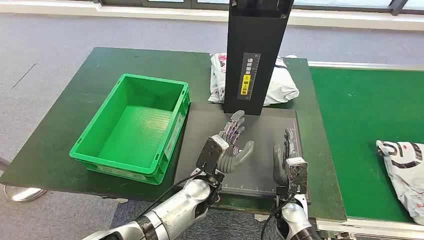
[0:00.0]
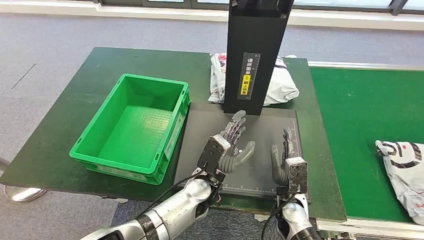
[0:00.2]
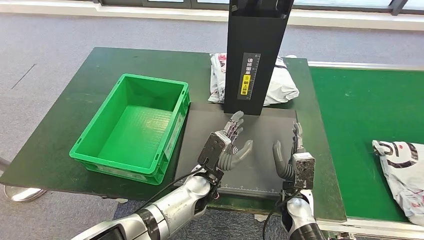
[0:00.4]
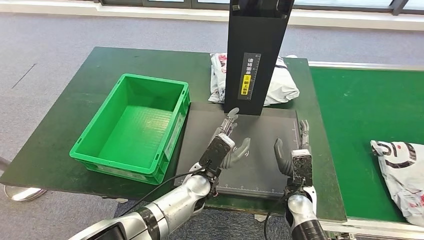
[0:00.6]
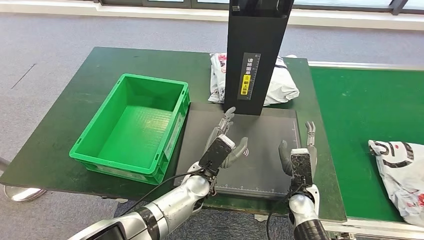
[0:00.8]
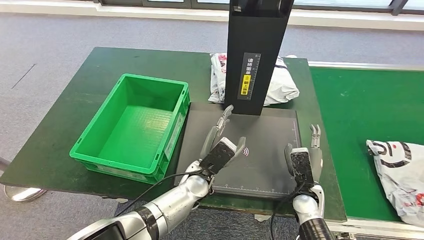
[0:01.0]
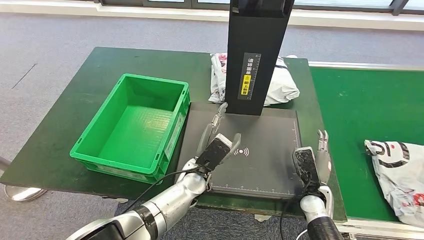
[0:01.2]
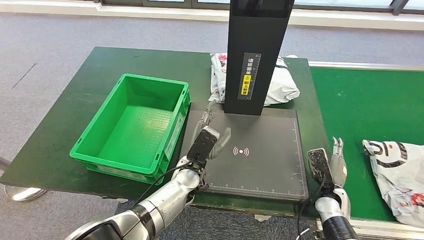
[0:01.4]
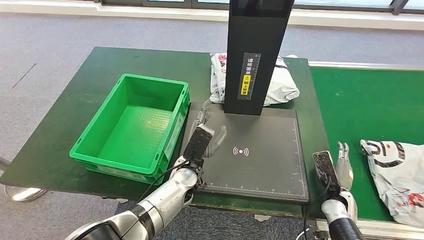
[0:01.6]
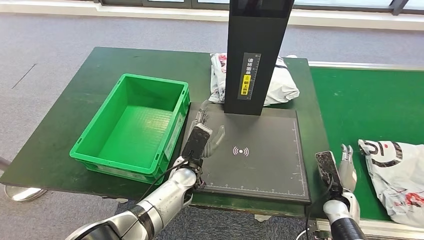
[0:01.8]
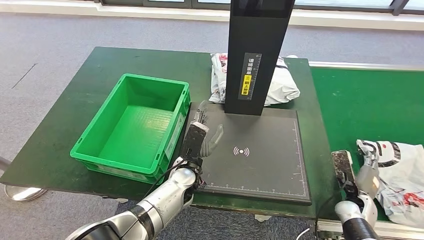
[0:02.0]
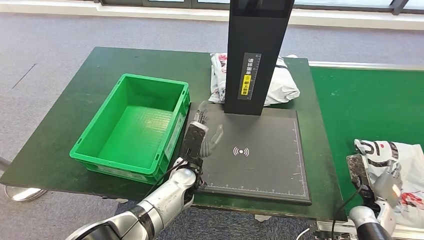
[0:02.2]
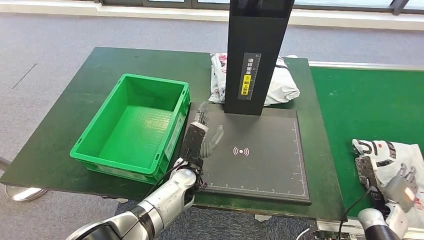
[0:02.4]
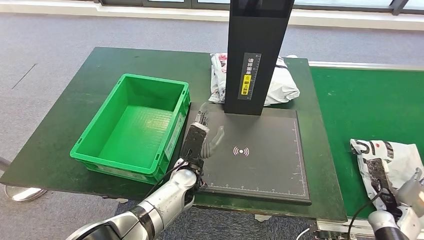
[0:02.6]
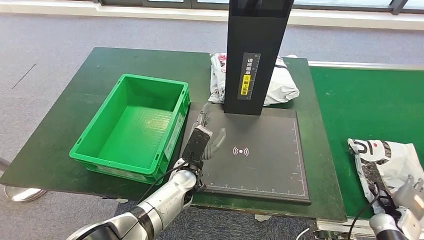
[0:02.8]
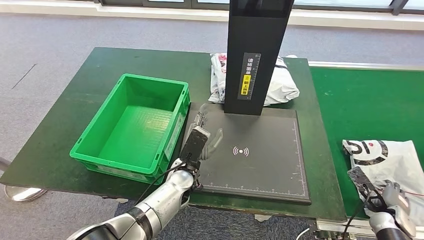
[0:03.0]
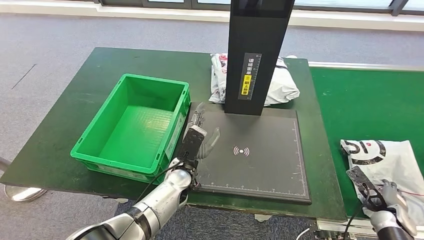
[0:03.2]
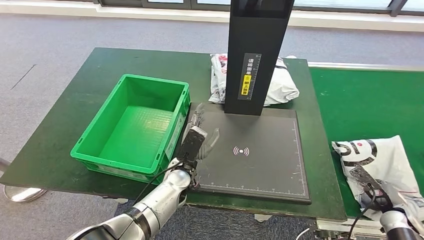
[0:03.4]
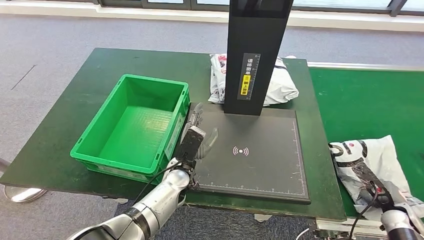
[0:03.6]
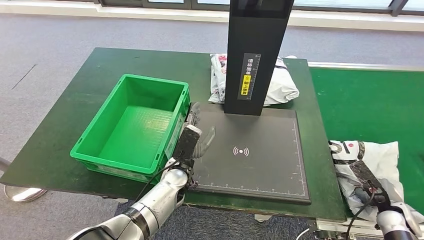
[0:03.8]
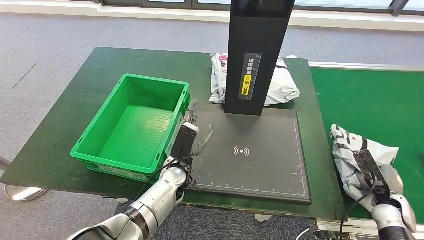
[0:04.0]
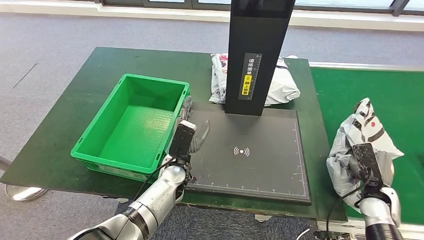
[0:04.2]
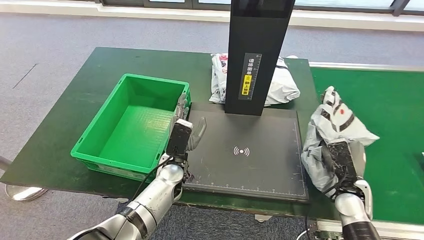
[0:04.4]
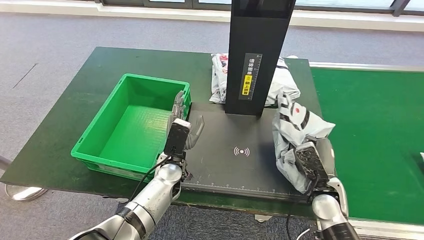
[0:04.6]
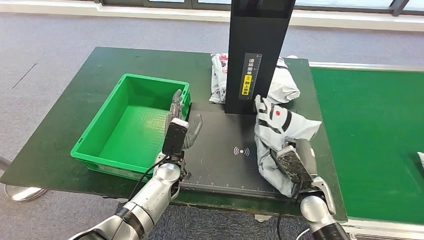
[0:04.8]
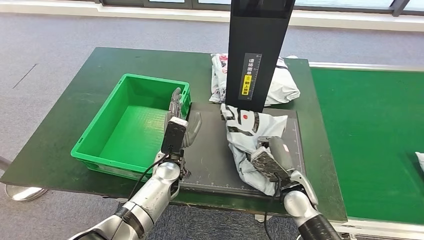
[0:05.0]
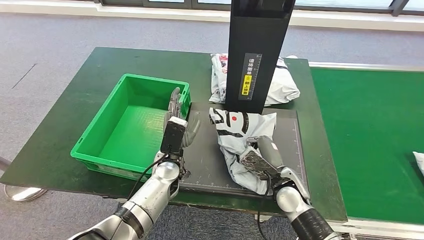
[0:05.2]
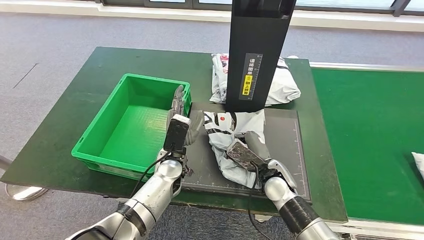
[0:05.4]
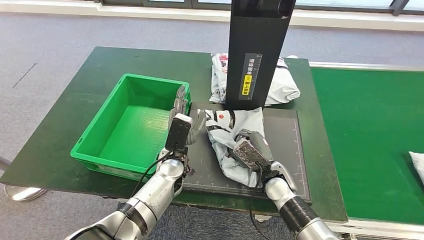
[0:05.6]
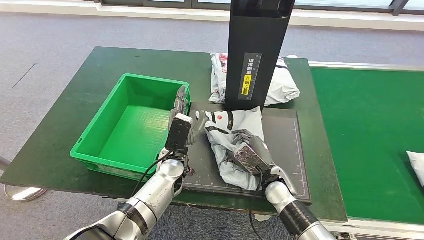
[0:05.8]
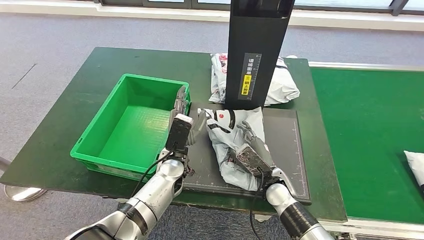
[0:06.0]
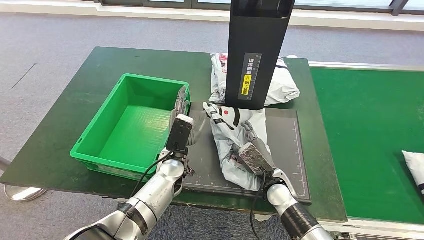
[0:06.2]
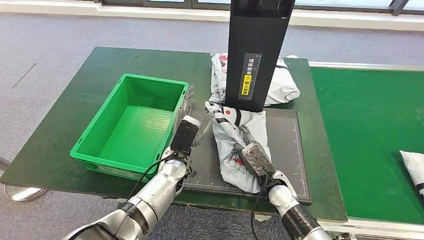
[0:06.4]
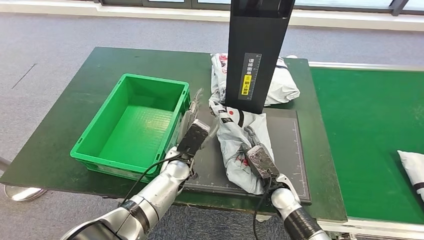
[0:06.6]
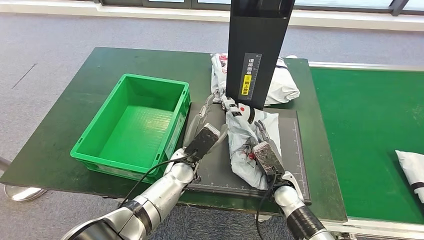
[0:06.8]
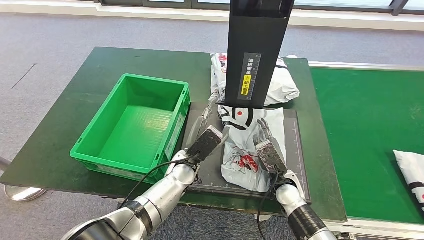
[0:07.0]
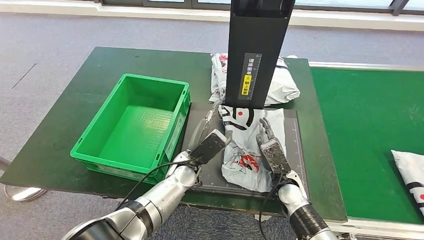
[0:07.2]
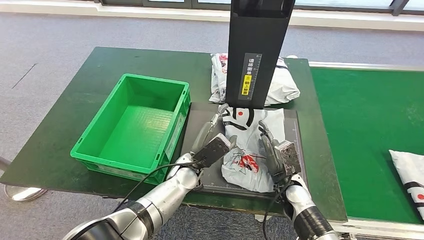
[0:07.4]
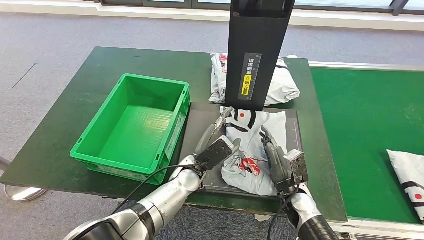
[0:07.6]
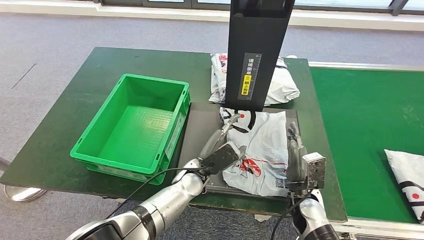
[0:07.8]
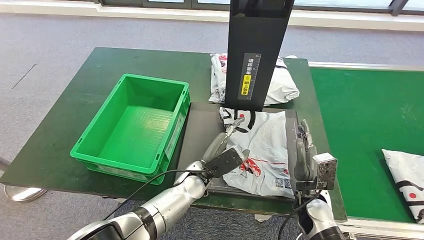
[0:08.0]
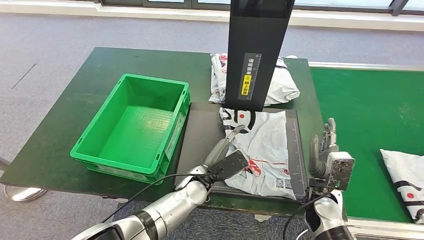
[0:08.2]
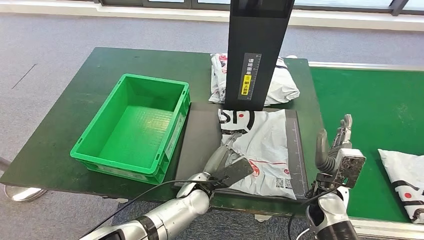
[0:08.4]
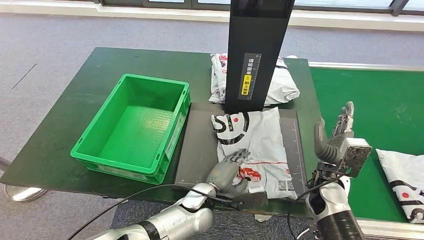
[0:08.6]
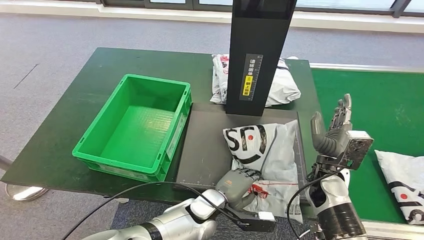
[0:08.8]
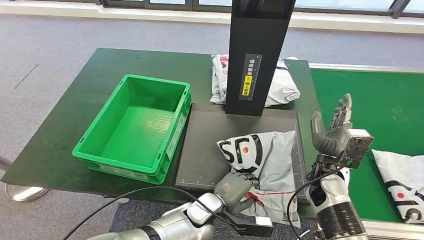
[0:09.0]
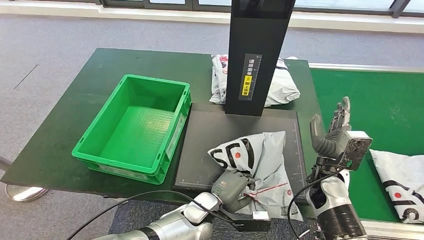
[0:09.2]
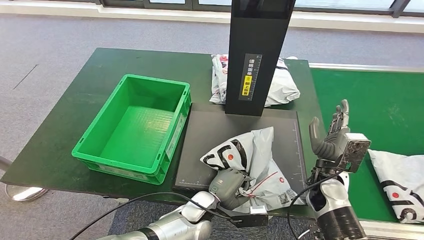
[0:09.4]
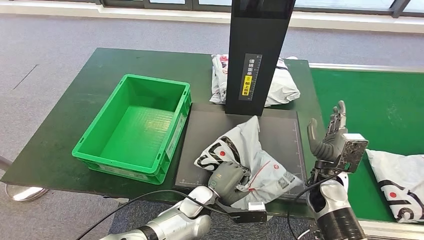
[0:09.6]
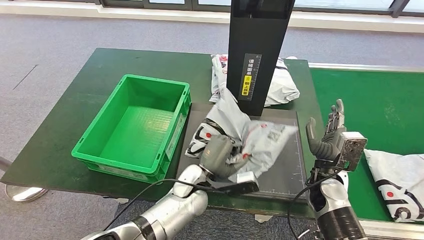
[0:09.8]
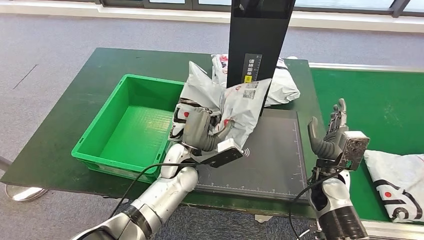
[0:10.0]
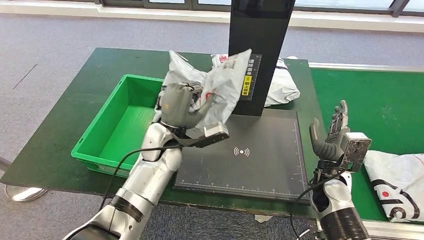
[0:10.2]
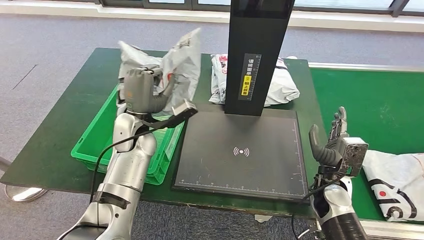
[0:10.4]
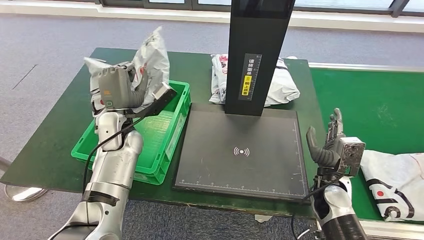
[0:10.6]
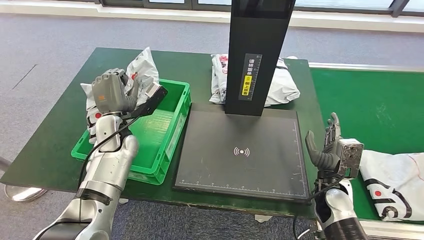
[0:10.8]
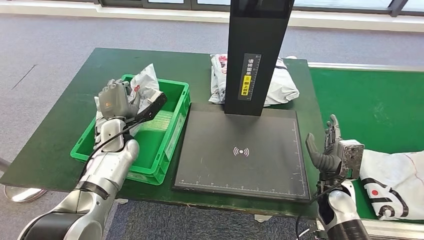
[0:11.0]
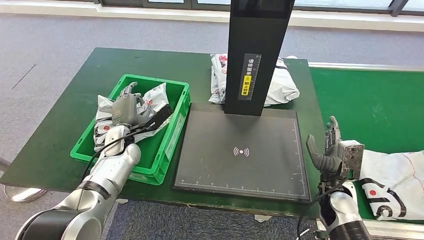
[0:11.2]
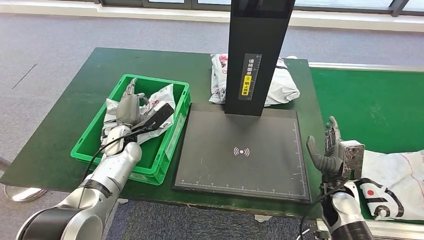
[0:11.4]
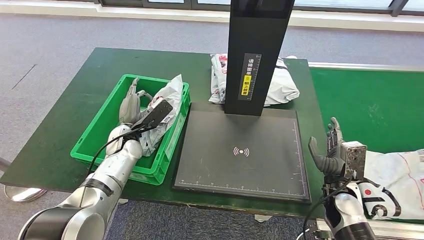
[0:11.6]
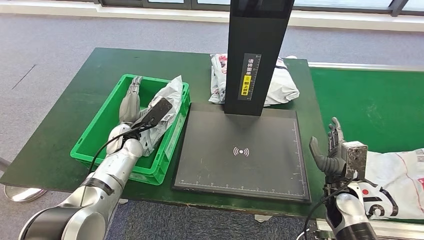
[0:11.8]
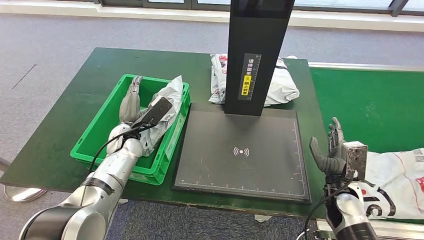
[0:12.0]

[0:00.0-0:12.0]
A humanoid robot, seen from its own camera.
Step, 0:00.0 to 0:04.2: Take the parcel off the conveyor belt.
Step, 0:04.4 to 0:07.4: Place the parcel onto the inbound machine.
Step, 0:07.8 to 0:10.2: Pick up the parcel from the inbound machine.
0:01.6 to 0:03.0: The right hand is displaced to the right by roughly 15 cm.
0:03.0 to 0:04.4: The right hand travels to the left and upward by roughly 15 cm.
0:04.4 to 0:06.0: The right hand is displaced to the left by about 20 cm.
0:06.0 to 0:07.6: The right hand moves to the right, approximately 5 cm.
0:10.4 to 0:12.0: The left hand goes approximately 10 cm downward and to the left.

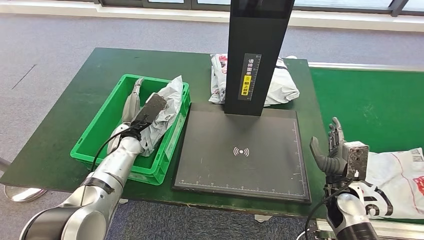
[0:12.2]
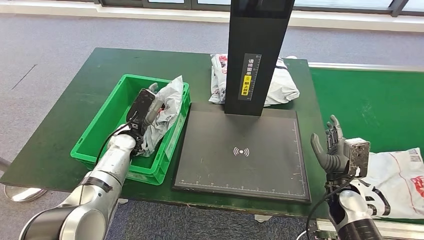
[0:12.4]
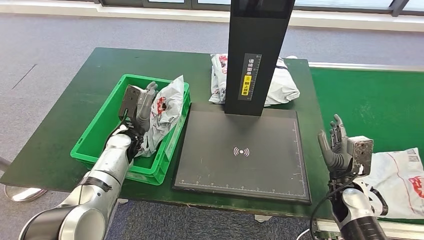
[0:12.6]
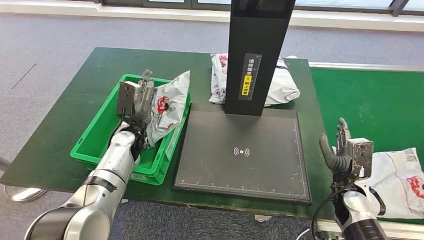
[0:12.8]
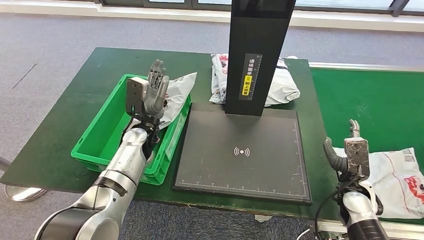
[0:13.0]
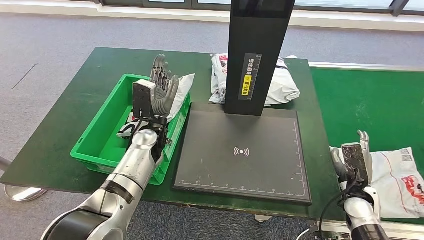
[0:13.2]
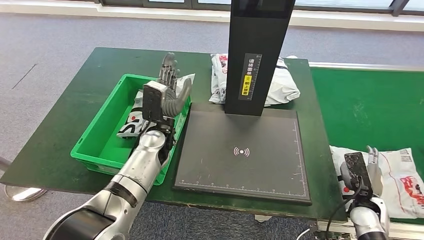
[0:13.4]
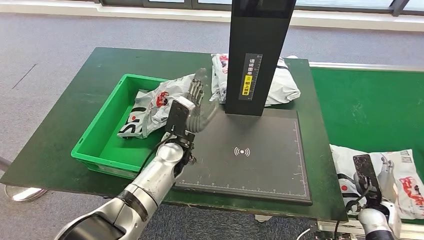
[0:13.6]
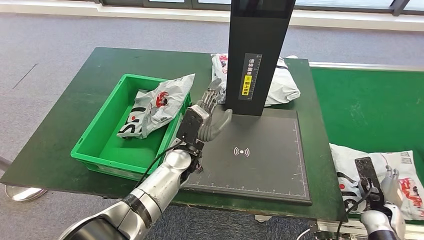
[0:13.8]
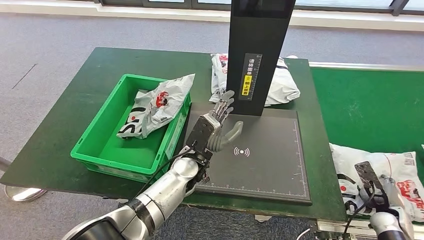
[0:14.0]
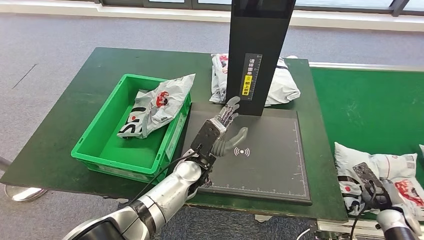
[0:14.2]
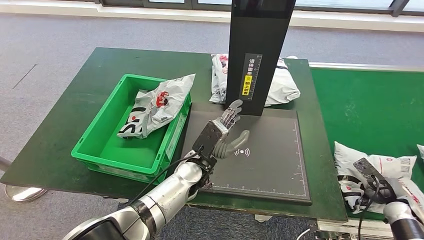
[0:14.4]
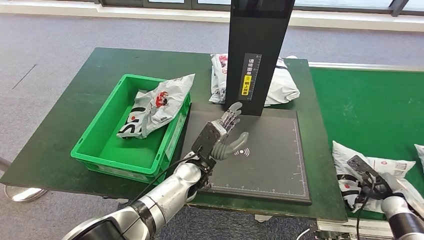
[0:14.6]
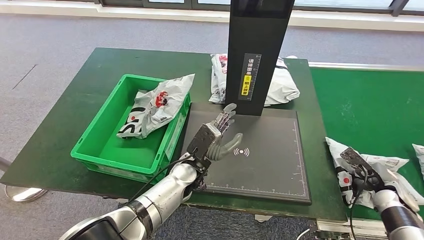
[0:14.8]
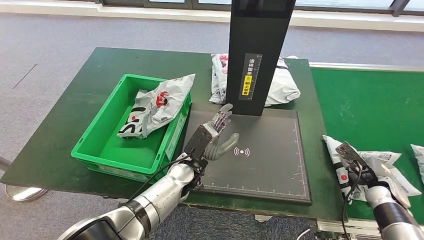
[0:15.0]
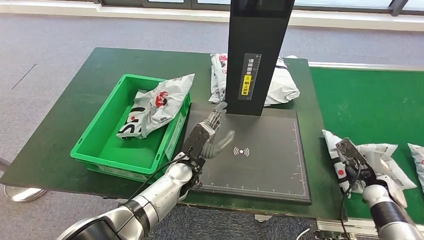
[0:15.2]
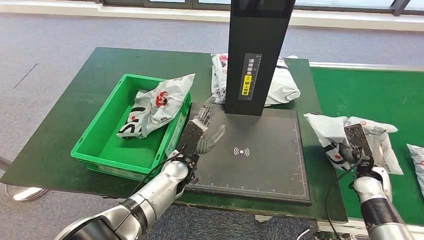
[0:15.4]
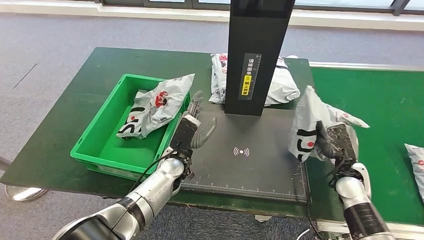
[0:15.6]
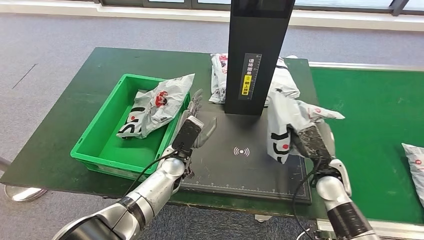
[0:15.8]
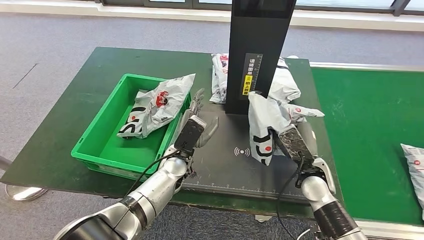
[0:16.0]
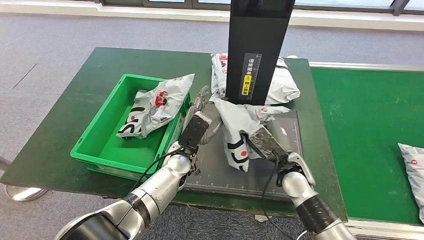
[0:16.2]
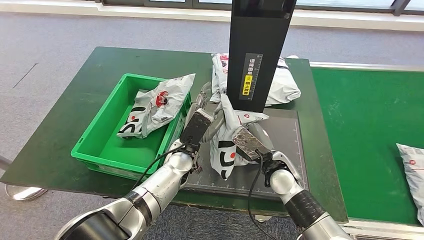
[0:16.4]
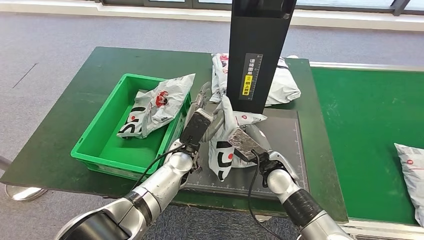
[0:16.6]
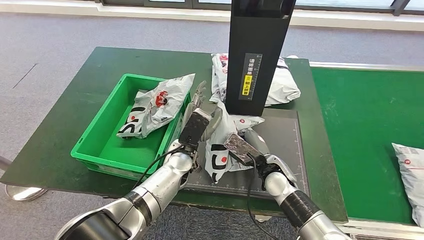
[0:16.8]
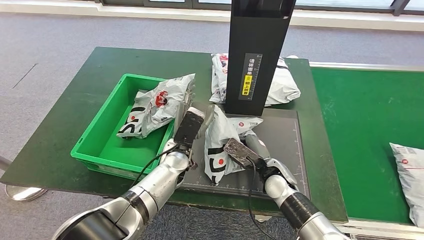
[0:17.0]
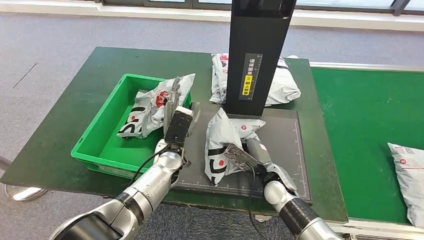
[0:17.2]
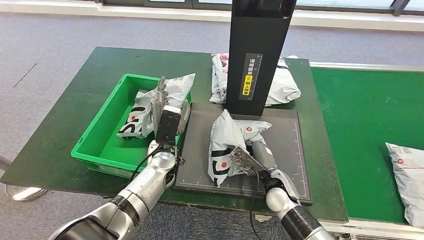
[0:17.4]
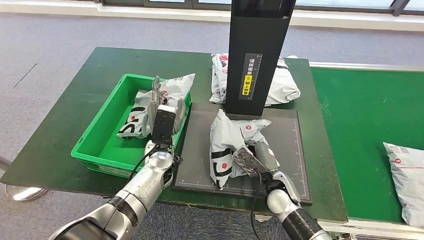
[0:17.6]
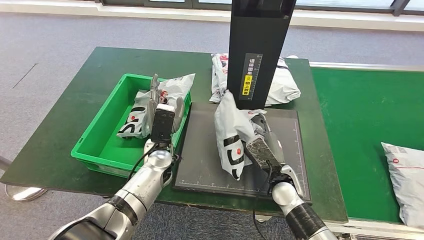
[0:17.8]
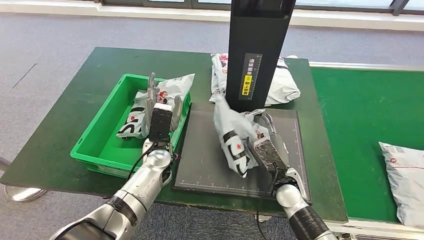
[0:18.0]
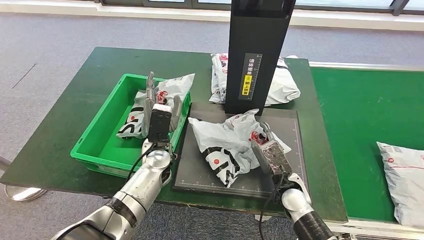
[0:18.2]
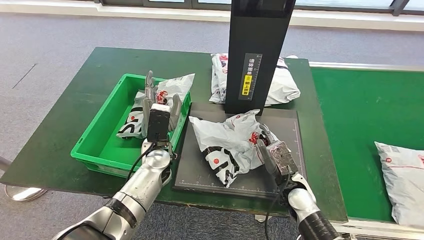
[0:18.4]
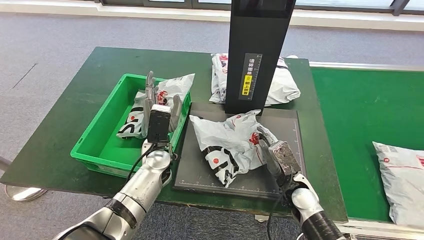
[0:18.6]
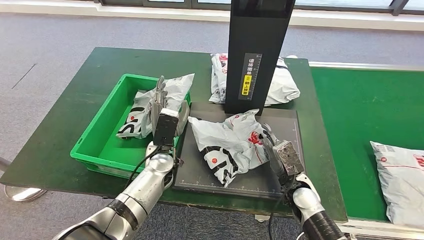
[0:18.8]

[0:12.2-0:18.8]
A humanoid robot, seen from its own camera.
Step, 0:13.2 to 0:15.6: Pick up the parcel from the conveyor belt.
0:13.8 to 0:15.4: The left hand shifts by some 5 cm; the right hand travels forward and upward by approximately 10 cm.
0:17.2 to 0:18.8: The right hand is displaced to the right by approximately 5 cm.
